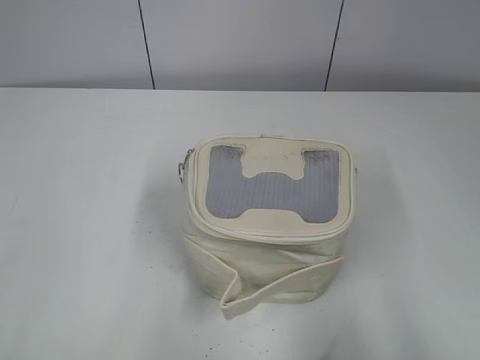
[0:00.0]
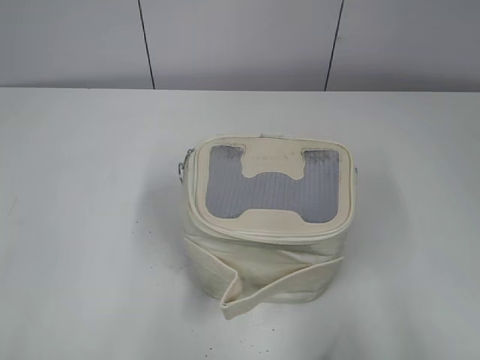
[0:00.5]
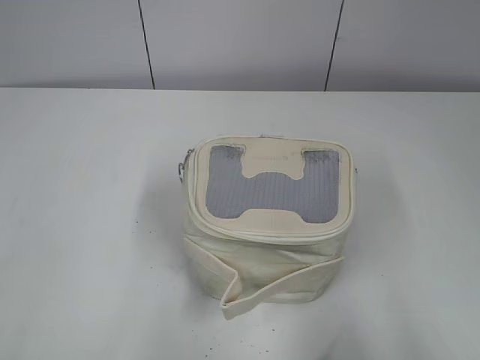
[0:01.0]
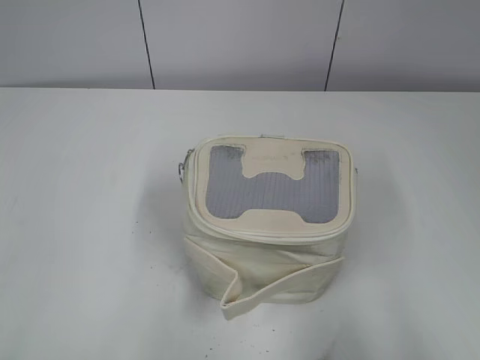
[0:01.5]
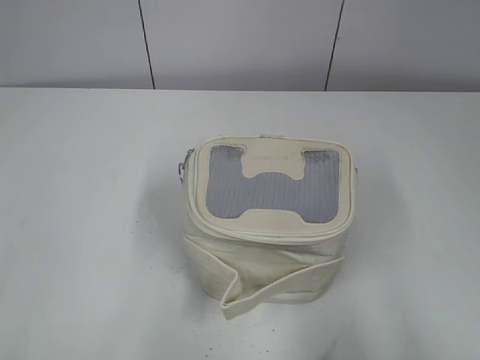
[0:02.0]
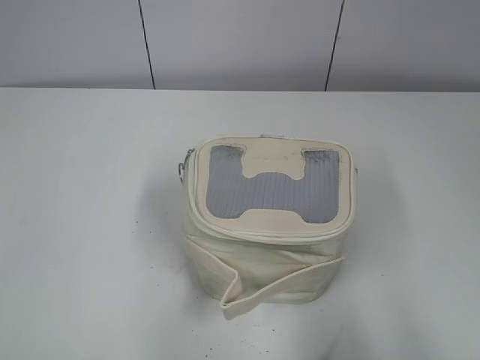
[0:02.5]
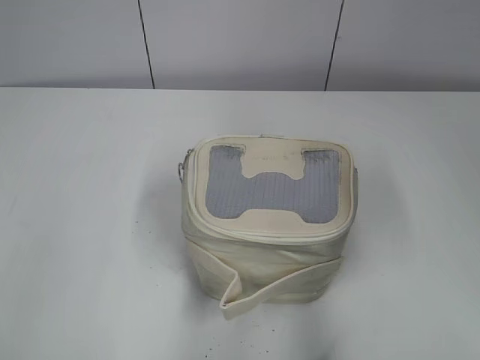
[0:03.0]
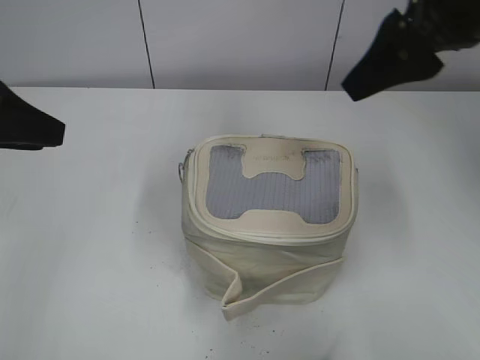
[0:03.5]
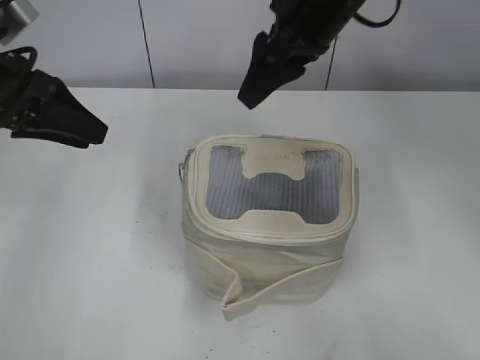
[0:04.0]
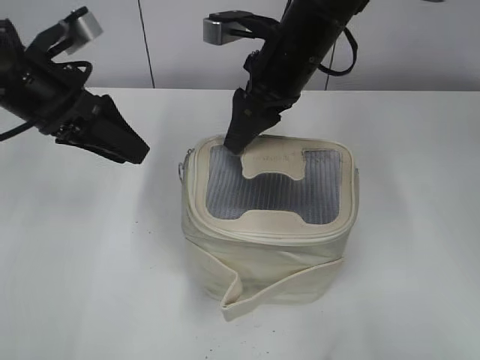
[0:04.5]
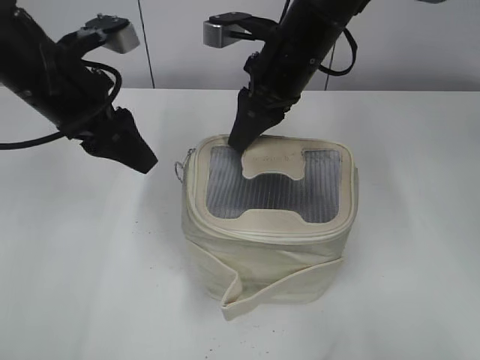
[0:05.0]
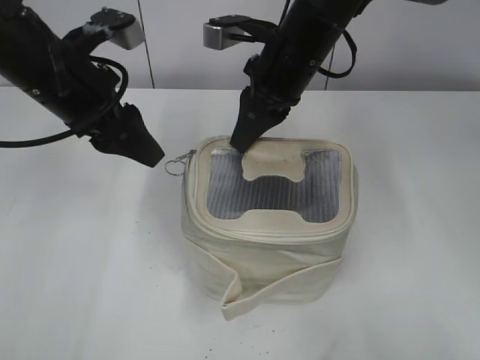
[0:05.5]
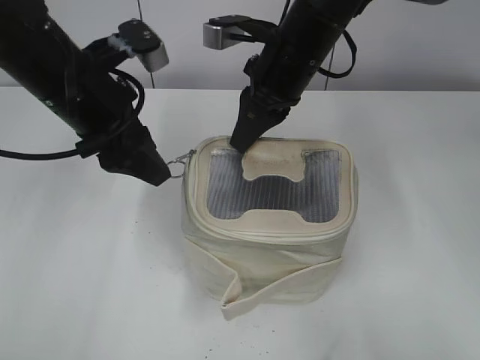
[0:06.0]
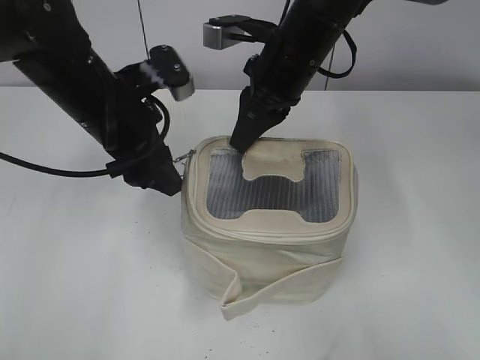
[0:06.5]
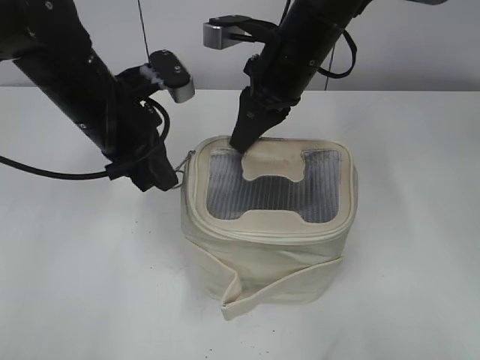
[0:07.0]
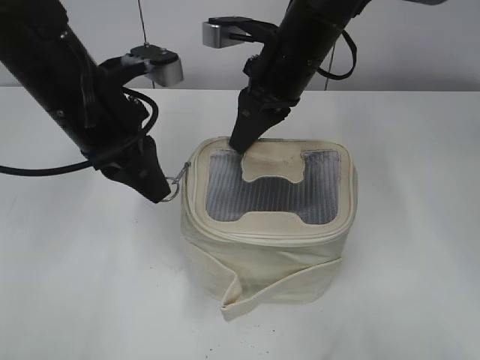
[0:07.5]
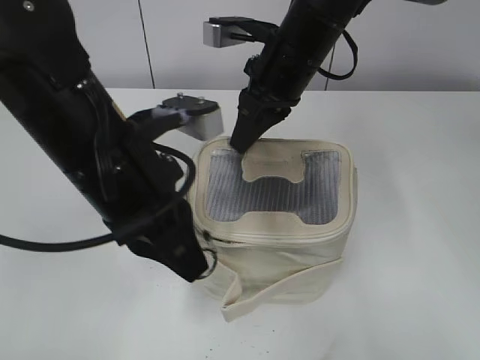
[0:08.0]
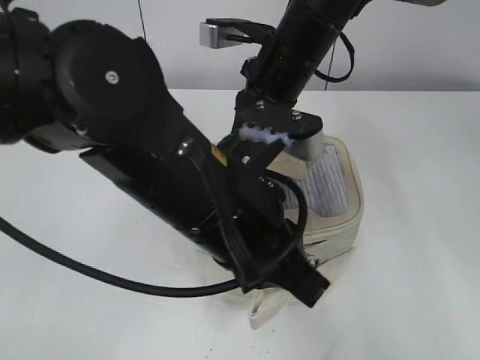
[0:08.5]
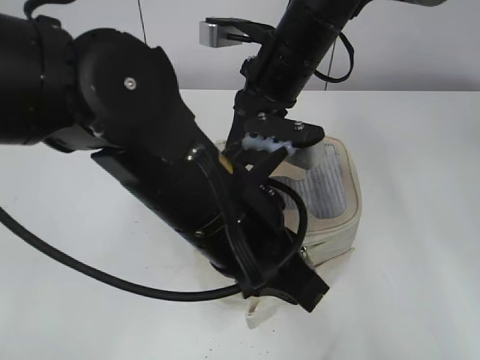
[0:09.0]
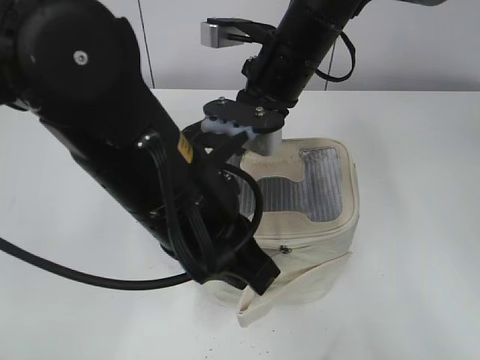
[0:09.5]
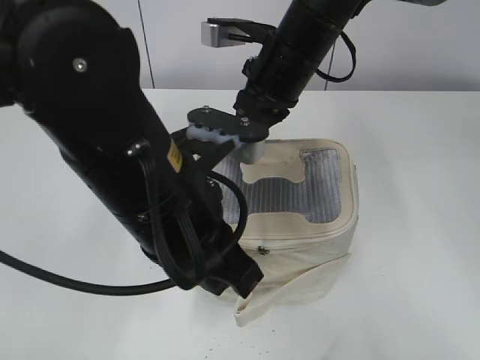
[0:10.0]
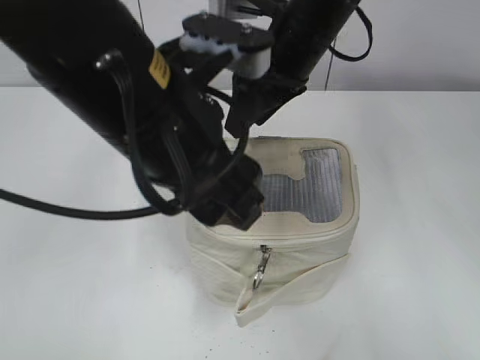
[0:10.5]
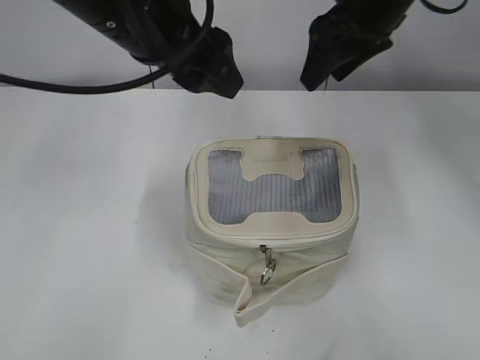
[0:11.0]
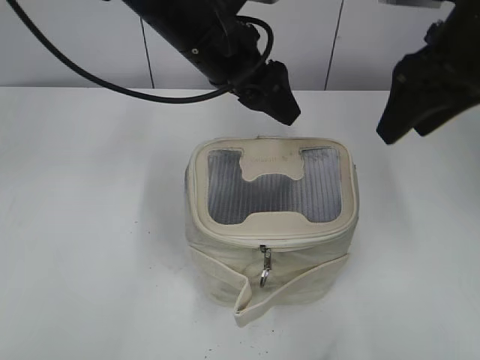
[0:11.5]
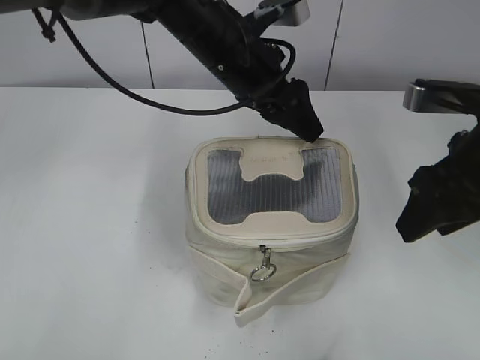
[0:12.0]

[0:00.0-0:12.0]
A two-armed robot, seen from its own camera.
Step, 0:00.0 to 0:10.0: Zip up the bag with your left hand.
0:02.0 to 0:04.0: The left gripper moves forward, roughly 30 cm; the right gripper shifts about 40 cm forward and to the left.
0:04.0 to 0:06.0: The left gripper travels to the right by about 10 cm, and opens its fingers, while the right gripper goes approximately 5 cm downward, and closes.
0:06.0 to 0:08.0: The left gripper goes roughly 10 cm backward and to the right, and closes up.
0:10.0 to 0:12.0: The left gripper shifts approximately 20 cm forward, and opens its fingers. Meanwhile the right gripper heads to the right and backward, covering some 20 cm, and opens its fingers.

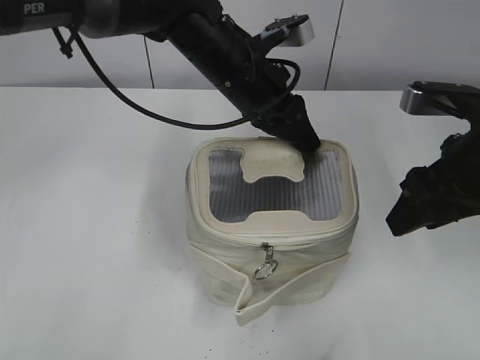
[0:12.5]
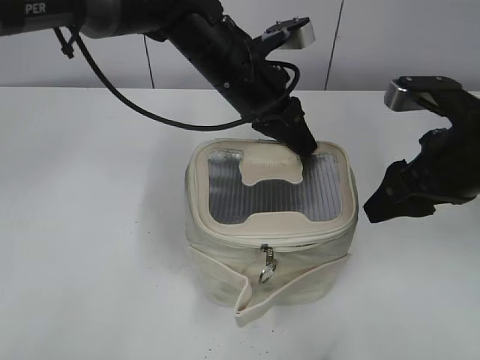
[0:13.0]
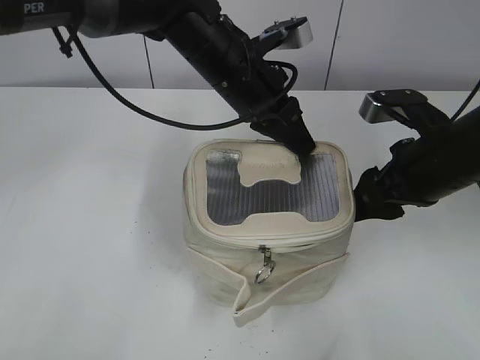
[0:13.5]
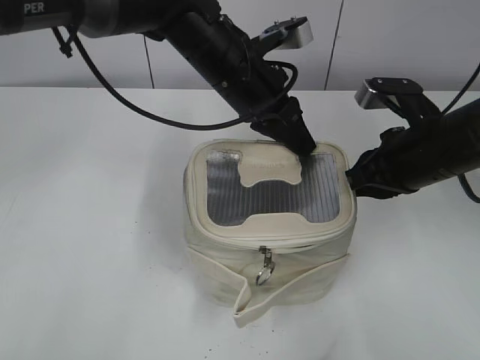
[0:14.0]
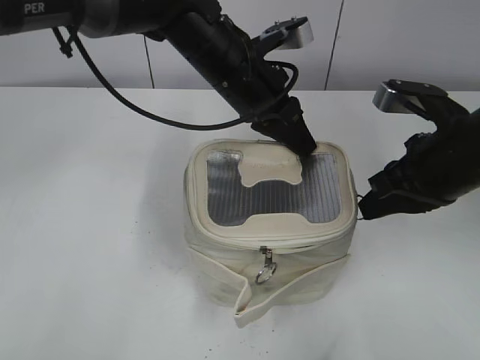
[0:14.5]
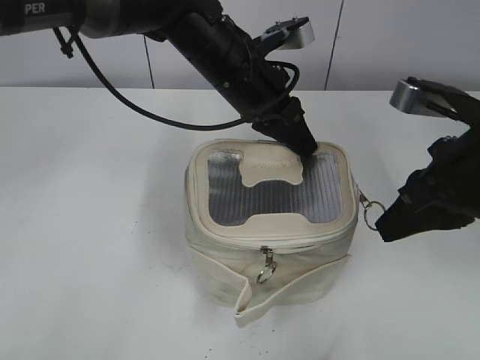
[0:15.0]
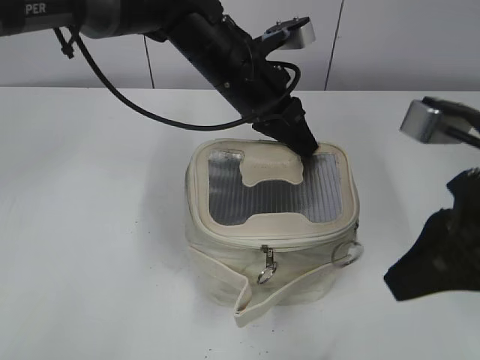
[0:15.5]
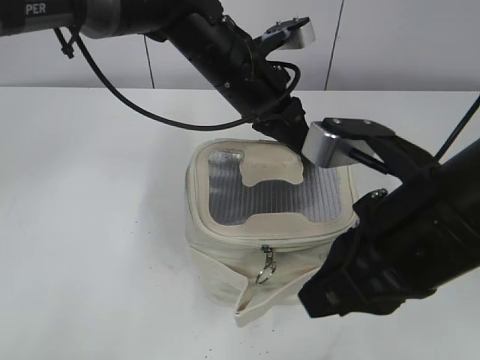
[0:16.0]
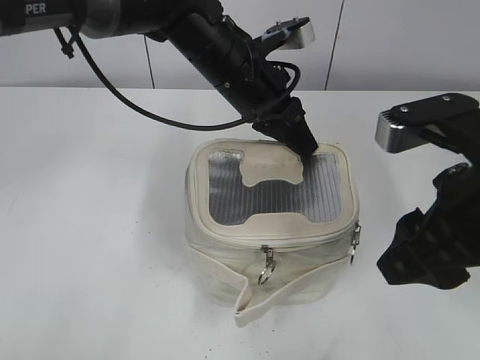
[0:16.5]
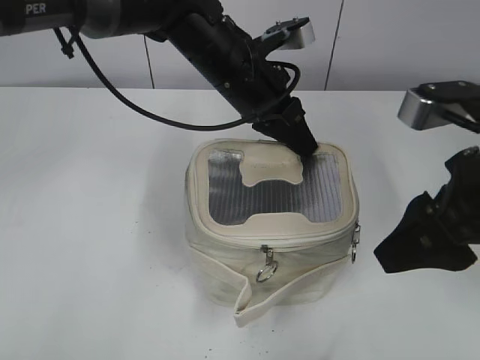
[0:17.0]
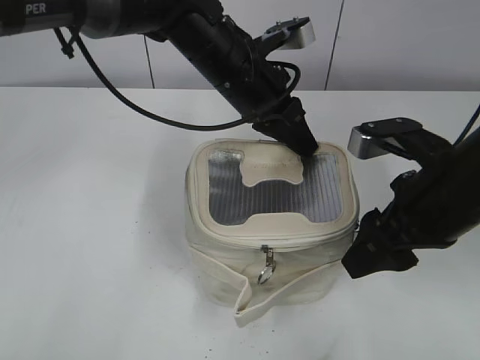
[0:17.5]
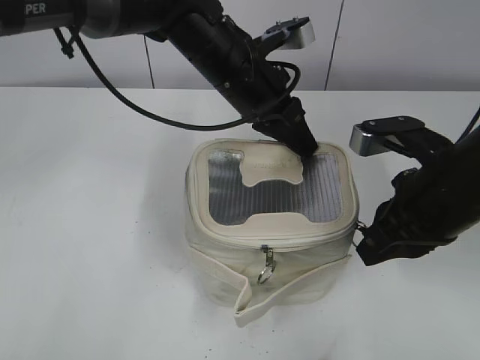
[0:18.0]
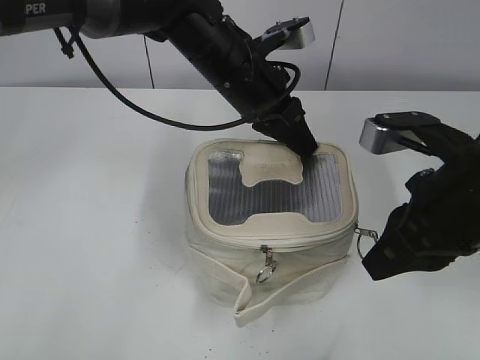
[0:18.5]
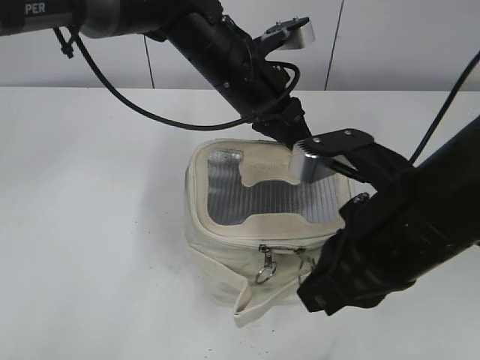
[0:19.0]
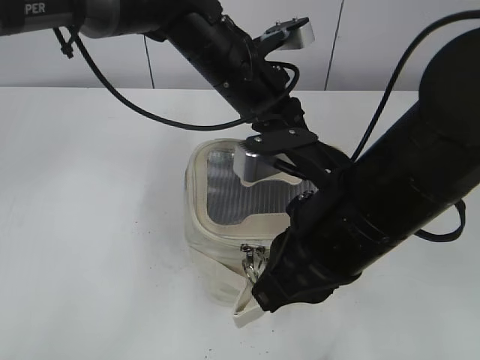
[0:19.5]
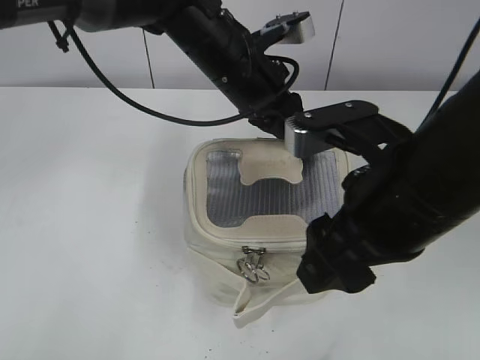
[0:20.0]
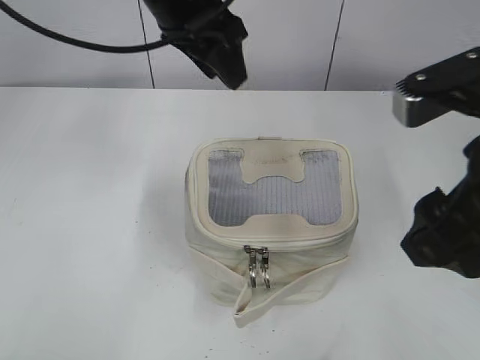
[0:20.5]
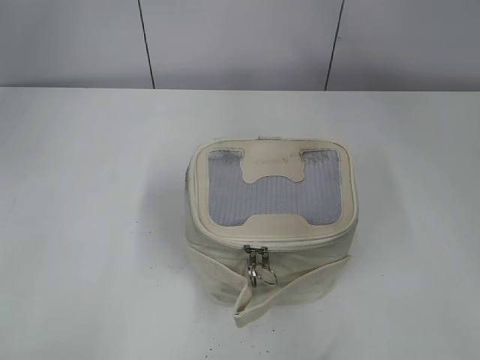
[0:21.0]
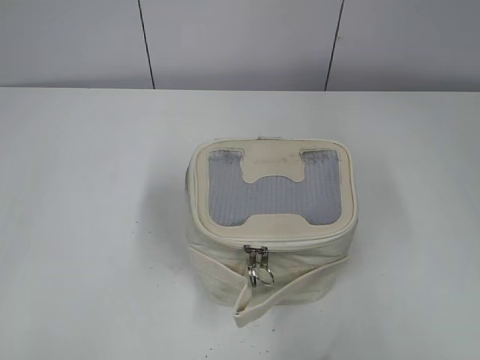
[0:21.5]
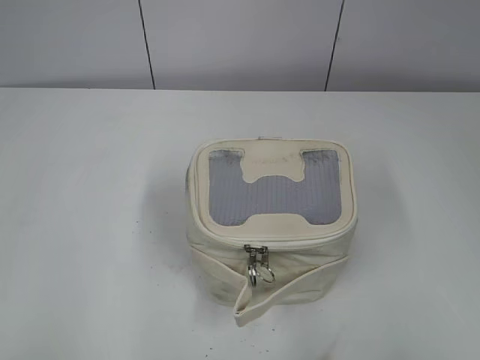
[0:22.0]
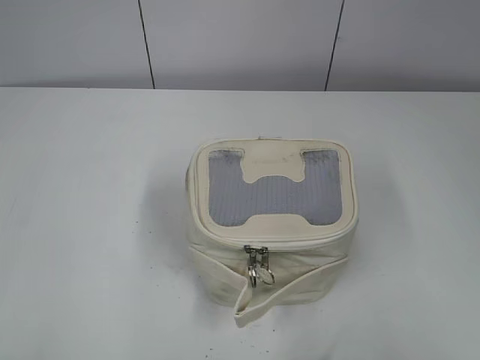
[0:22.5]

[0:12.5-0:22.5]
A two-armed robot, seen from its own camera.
Step, 0:12.5 to 0:19.5: Zip up the bag with your right hand.
0:12.5 to 0:14.5: The right gripper closes.
0:14.5 to 0:16.5: The right gripper travels backward and upward by approximately 10 cm, and opens up.
0:16.5 to 0:18.5: The right gripper closes.
0:18.5 to 0:20.5: The right gripper heads upward, covering roughly 5 cm, moves approximately 10 cm to the left and comes back, and opens its fingers, while the left gripper travels upward and to the left by roughly 15 cm, and opens its fingers.
0:20.5 to 0:22.5: The left gripper travels backward and to the left by about 40 cm, while the right gripper shifts roughly 20 cm backward and to the right.

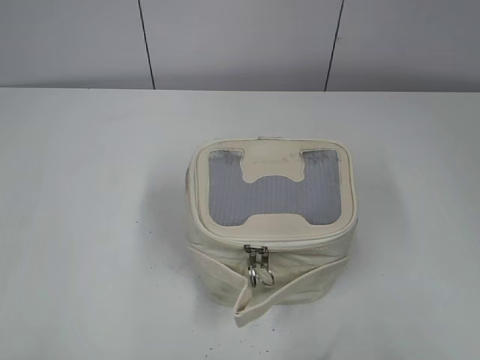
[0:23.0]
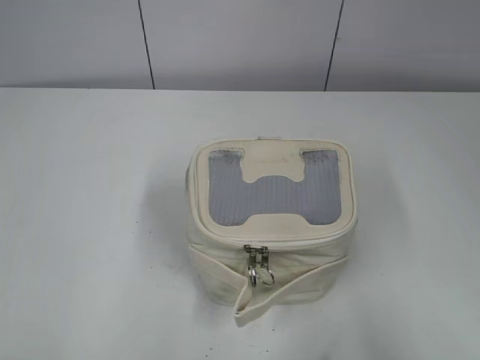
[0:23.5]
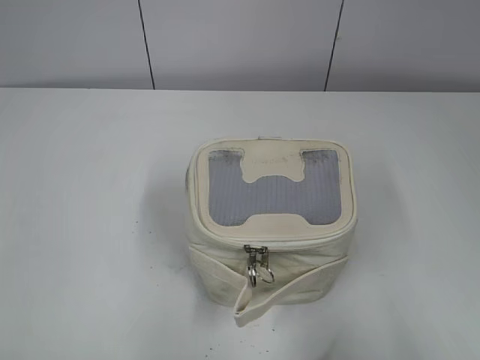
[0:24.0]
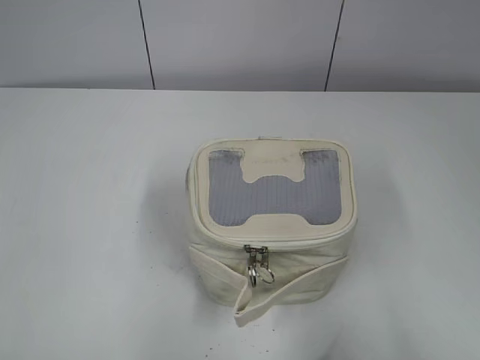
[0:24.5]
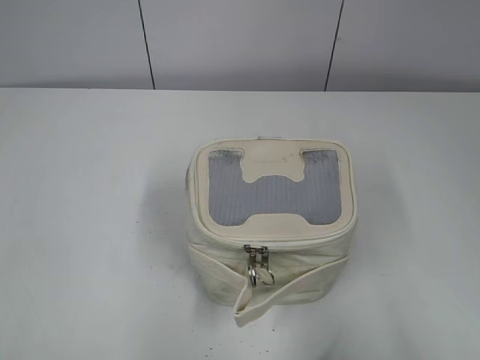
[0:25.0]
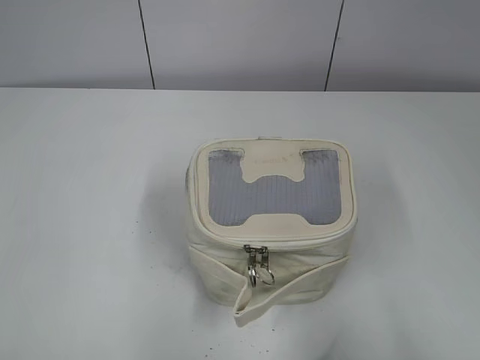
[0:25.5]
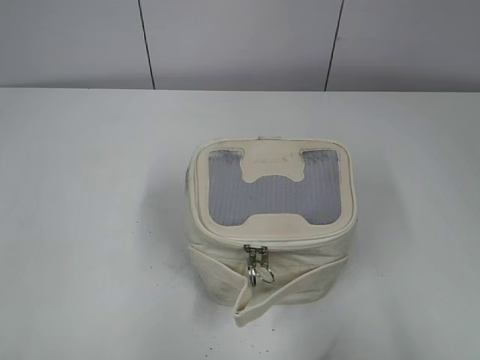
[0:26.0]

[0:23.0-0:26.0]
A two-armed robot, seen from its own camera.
0:24.5 to 0:26.0: Neither gripper changes place.
